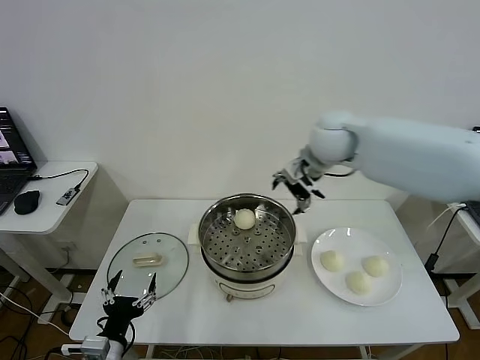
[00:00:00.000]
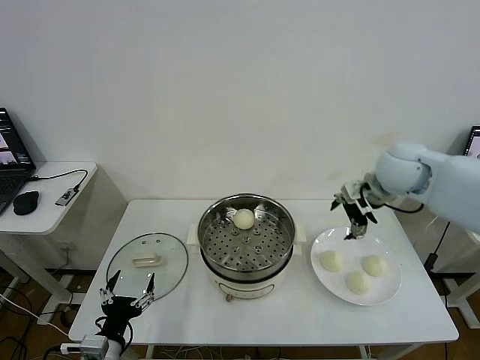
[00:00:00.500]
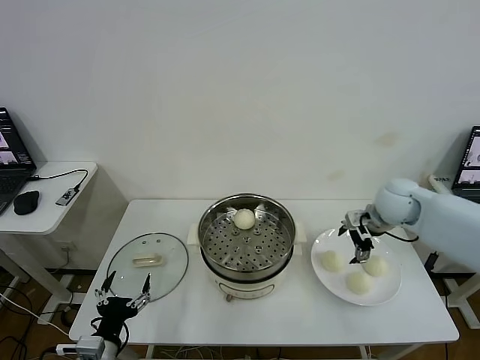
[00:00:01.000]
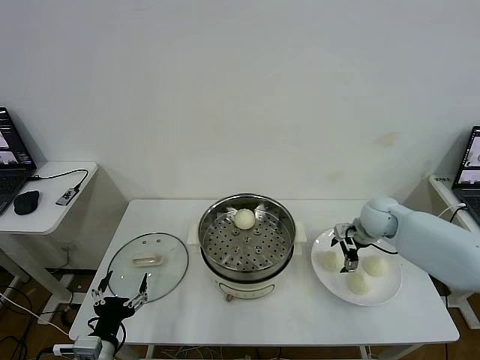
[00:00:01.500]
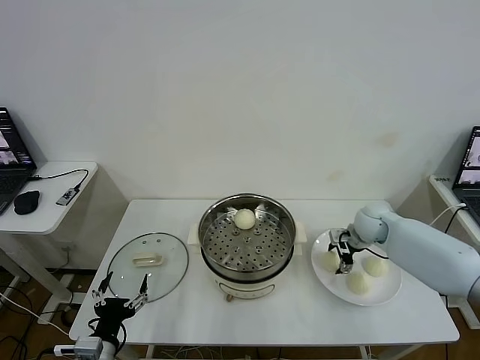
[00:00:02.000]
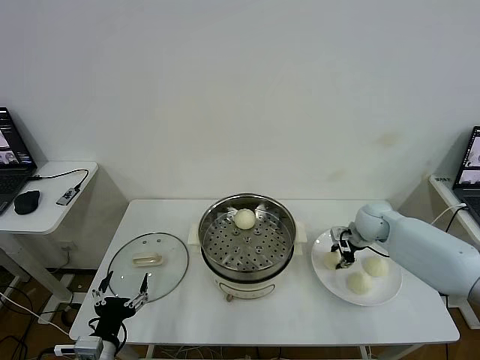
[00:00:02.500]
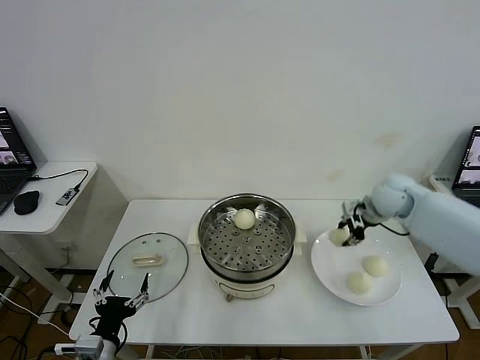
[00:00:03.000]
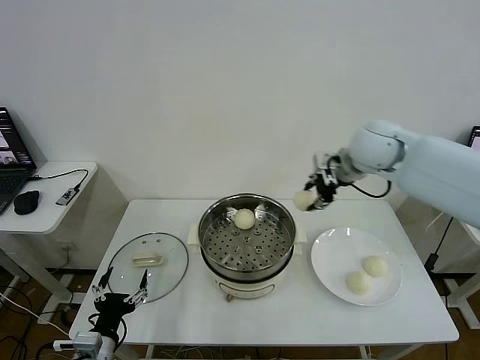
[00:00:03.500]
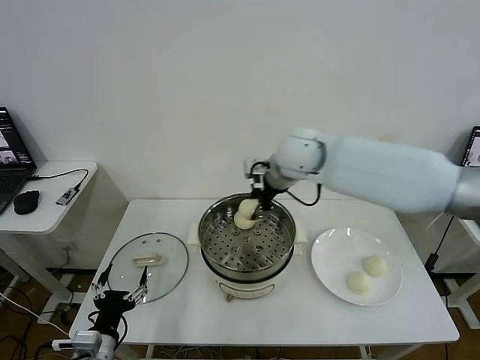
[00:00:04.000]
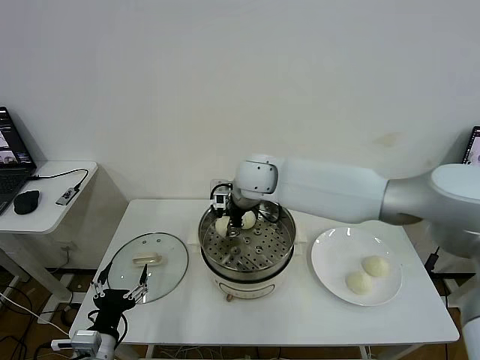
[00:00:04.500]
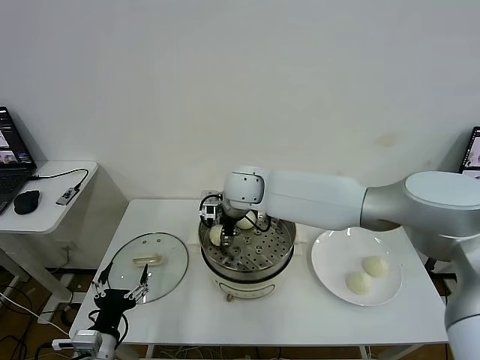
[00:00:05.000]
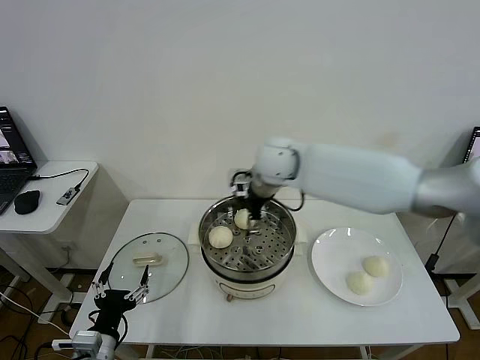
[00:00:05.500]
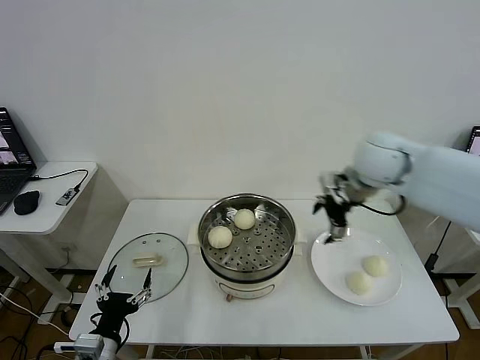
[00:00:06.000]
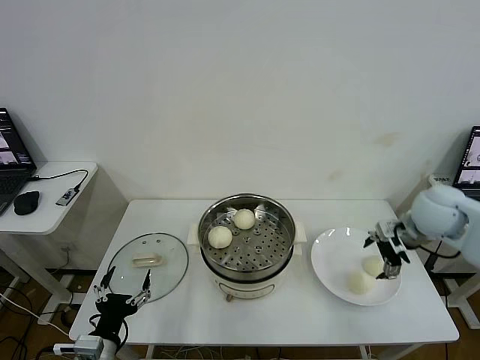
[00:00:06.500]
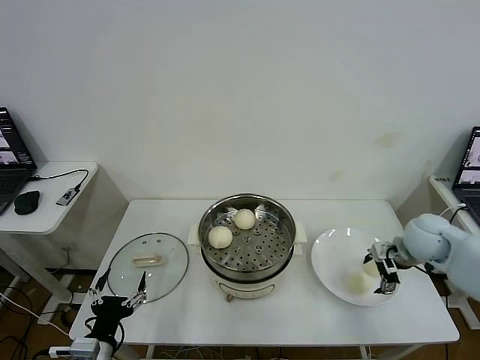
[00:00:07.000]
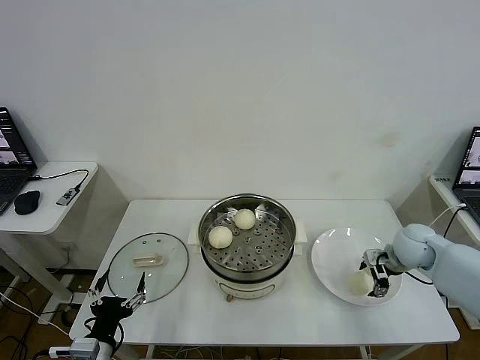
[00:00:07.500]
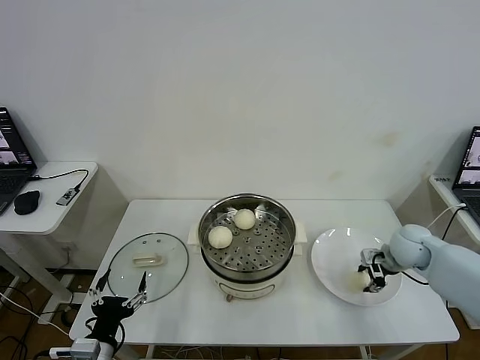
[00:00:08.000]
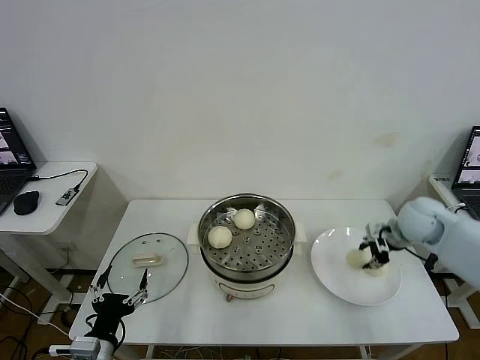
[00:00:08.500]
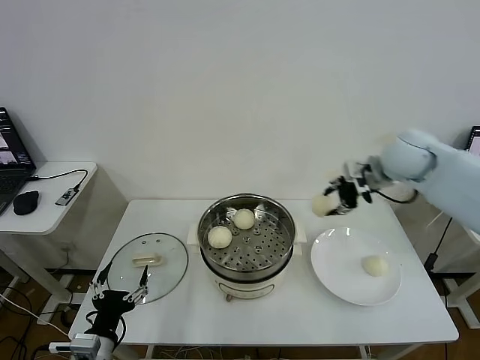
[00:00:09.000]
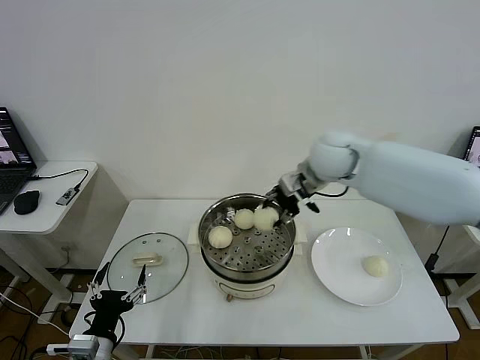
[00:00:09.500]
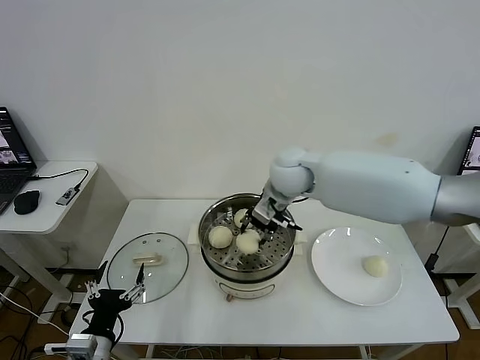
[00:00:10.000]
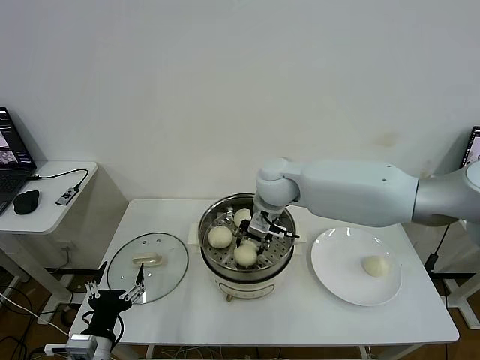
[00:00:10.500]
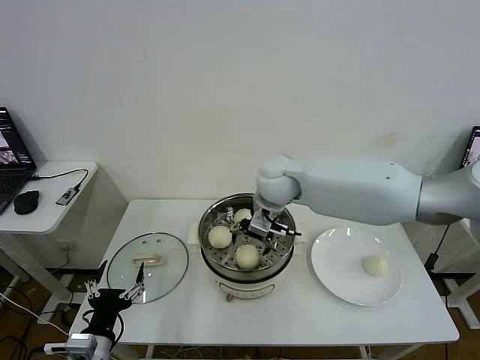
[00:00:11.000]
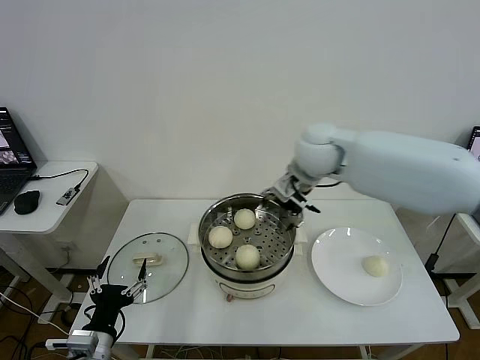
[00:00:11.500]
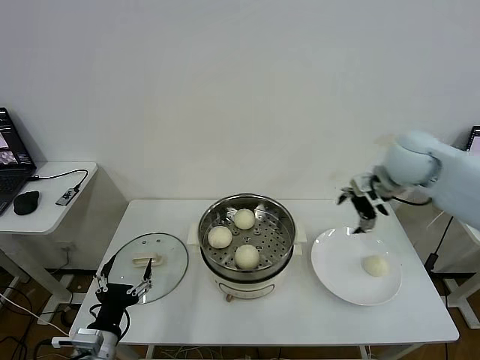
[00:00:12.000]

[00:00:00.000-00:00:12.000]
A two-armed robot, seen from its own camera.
Task of the whole recording: take steamed baozi put them in steamer then cover it.
Step, 00:00:00.000 to 00:00:02.000: Grasp the baozi in the plate with right gripper.
Step, 00:00:02.500 to 00:00:05.000: Place the baozi on the steamer with right gripper.
Step, 00:00:05.500 to 00:00:08.000: Grasp the baozi in the plate with right gripper.
Step, 00:00:08.500 to 00:00:11.000: Place the baozi on the steamer with right gripper.
00:00:00.000 to 00:00:02.000: The right gripper is displaced downward and to the right by approximately 25 cm, and closes its fingers.
00:00:02.000 to 00:00:04.000: The right gripper goes some 30 cm to the left and upward, and closes up.
00:00:04.000 to 00:00:06.000: The right gripper travels to the right by approximately 20 cm, and opens up.
00:00:06.000 to 00:00:08.000: The right gripper goes approximately 25 cm downward and to the right, and closes up.
00:00:08.000 to 00:00:10.000: The right gripper shifts about 35 cm to the left and upward.
00:00:10.000 to 00:00:12.000: The right gripper goes some 25 cm to the right, and opens up.

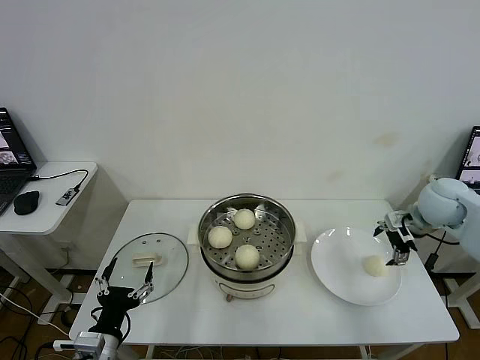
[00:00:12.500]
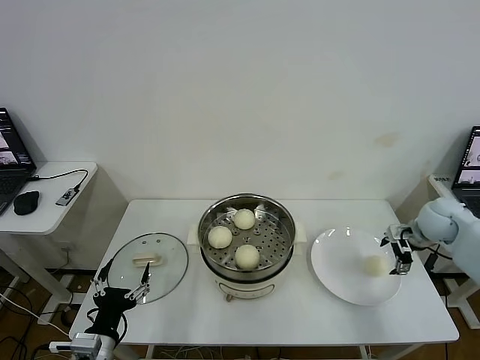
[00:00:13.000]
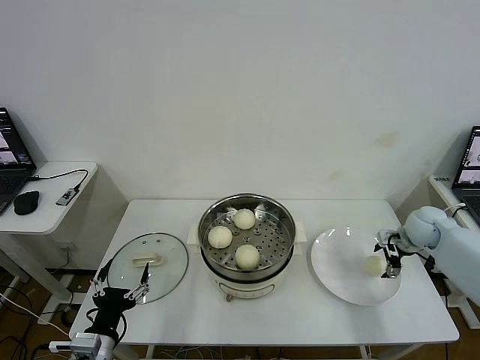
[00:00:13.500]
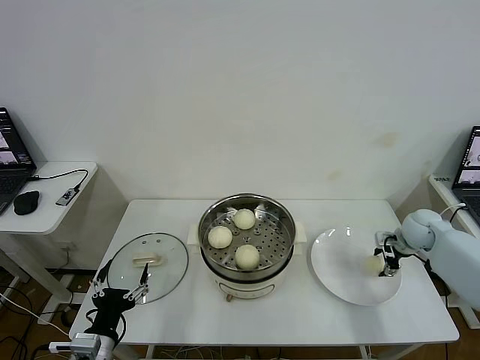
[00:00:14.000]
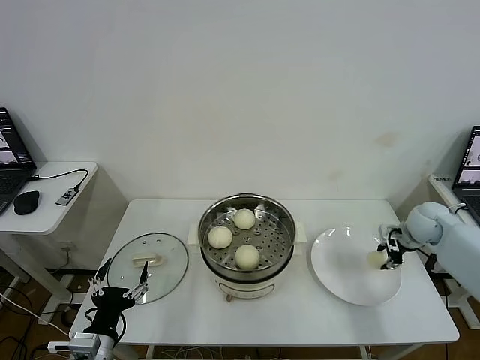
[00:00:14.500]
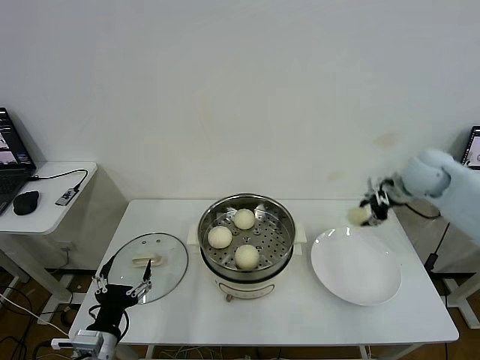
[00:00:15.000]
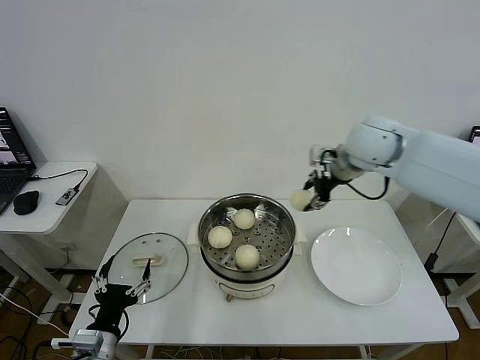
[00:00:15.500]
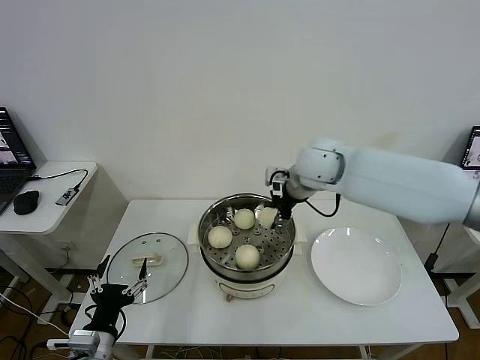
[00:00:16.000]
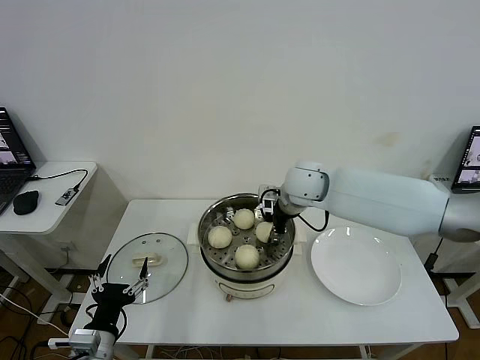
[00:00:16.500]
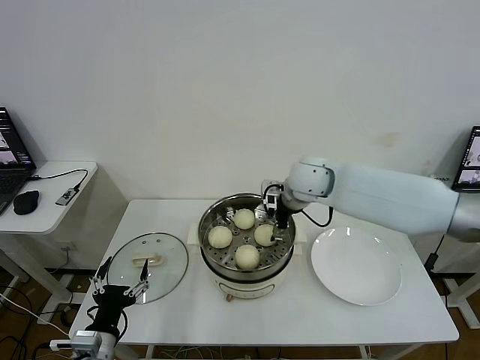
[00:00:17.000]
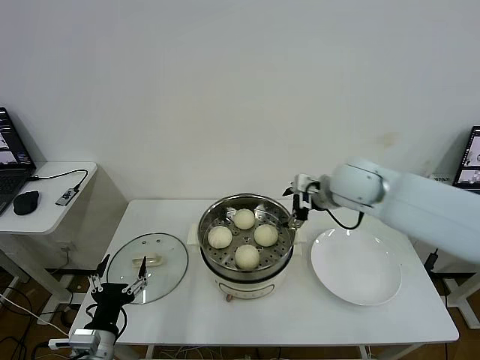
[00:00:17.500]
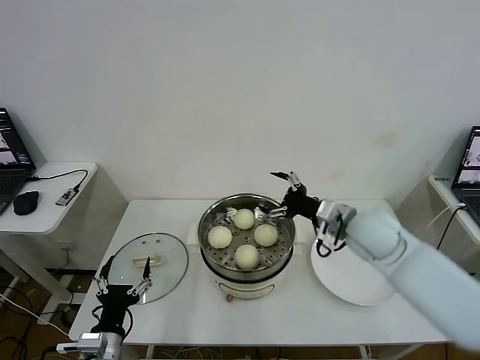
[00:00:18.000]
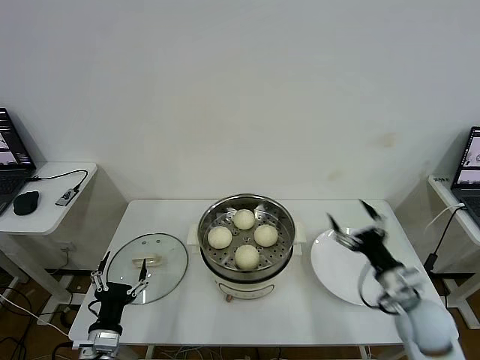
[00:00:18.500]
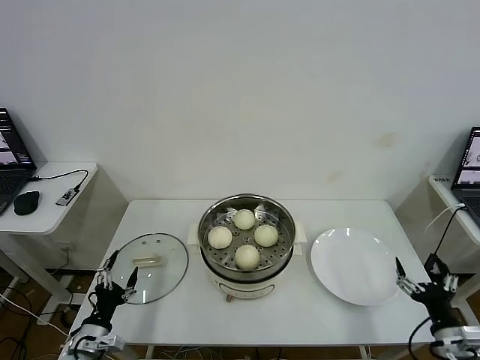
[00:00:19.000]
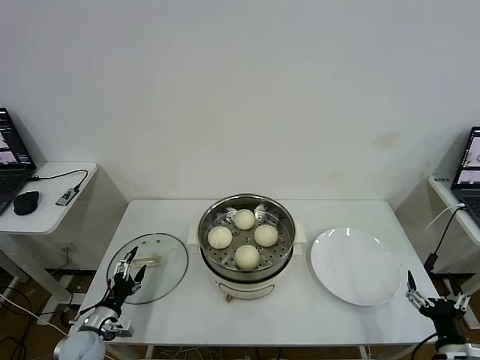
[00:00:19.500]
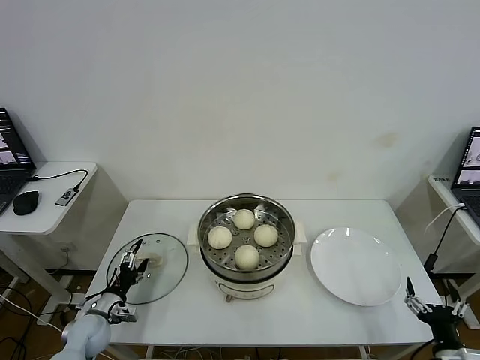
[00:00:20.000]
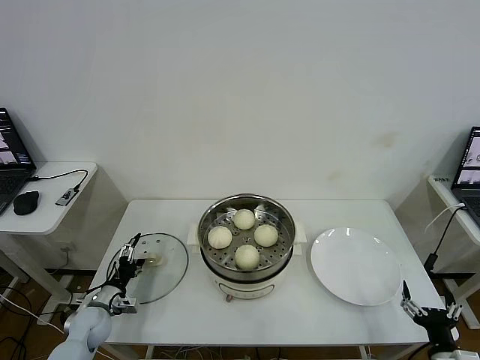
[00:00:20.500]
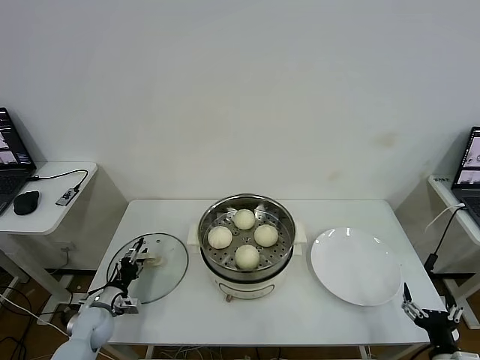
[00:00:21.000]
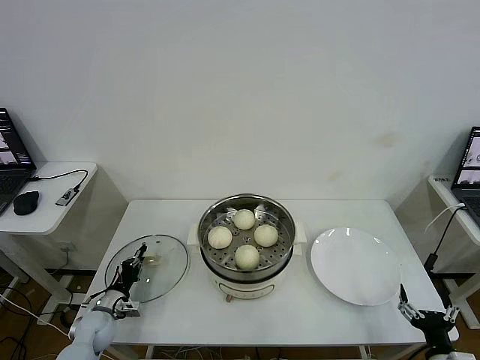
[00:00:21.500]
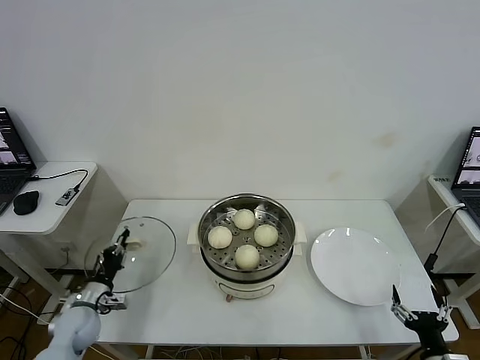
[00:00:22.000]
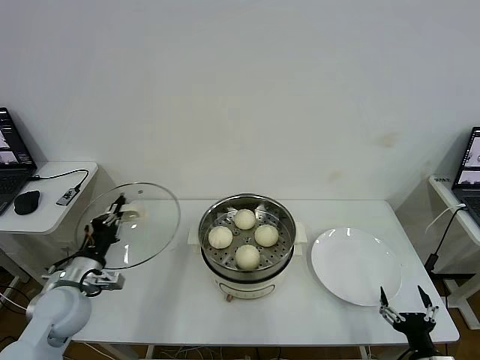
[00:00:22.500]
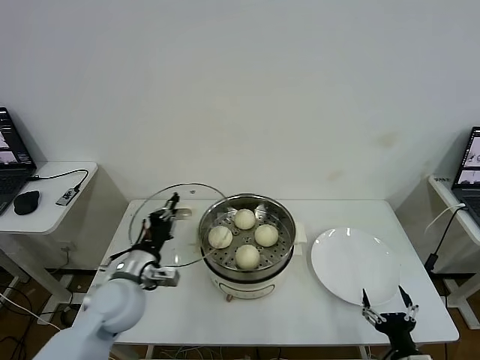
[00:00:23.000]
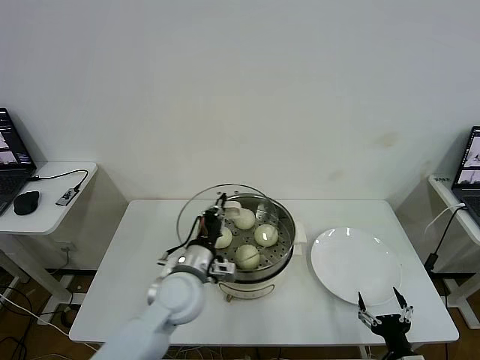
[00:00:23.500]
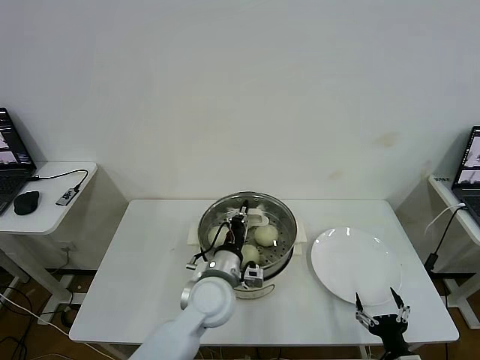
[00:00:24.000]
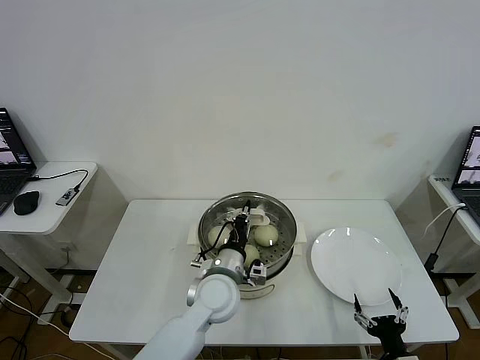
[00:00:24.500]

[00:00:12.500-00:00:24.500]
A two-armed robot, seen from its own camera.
Task of the whole recording: take steamed baozi put them in steamer then cover it.
Step, 00:00:12.500 to 00:00:14.000: Grasp the baozi in the plate with right gripper.
Step, 00:00:14.500 to 00:00:17.000: Place the baozi on the steamer with right gripper.
Step, 00:00:17.500 to 00:00:21.500: Grasp the pot lid with left gripper.
00:00:12.500 to 00:00:14.500: The right gripper goes approximately 10 cm downward, and closes up.
00:00:14.500 to 00:00:16.500: The right gripper goes about 30 cm to the left.
00:00:16.500 to 00:00:18.500: The right gripper is displaced backward, to the right and downward by roughly 35 cm, and opens.
00:00:18.500 to 00:00:20.500: The right gripper heads backward, downward and to the right, covering about 20 cm, while the left gripper heads forward, to the left and downward, covering approximately 20 cm.
00:00:20.500 to 00:00:22.500: The left gripper travels upward by about 15 cm, and closes.
00:00:22.500 to 00:00:24.500: The left gripper goes roughly 30 cm to the right.

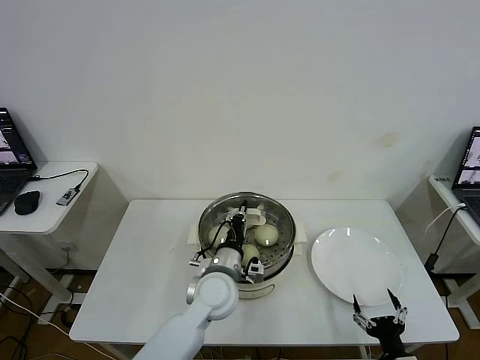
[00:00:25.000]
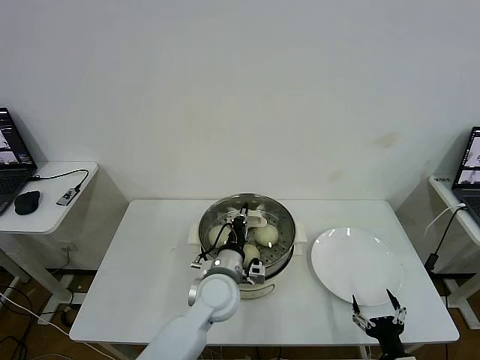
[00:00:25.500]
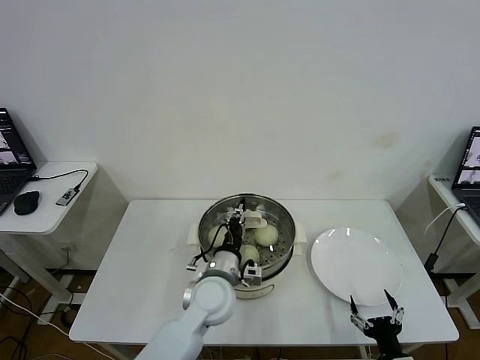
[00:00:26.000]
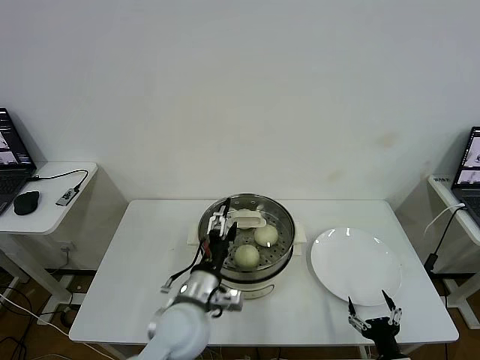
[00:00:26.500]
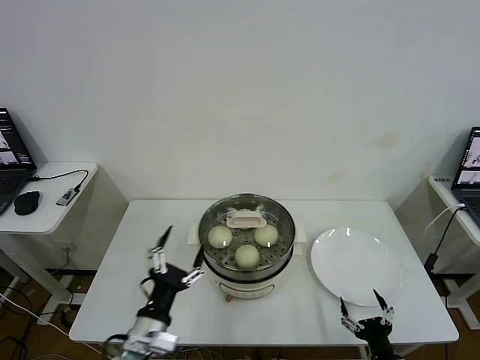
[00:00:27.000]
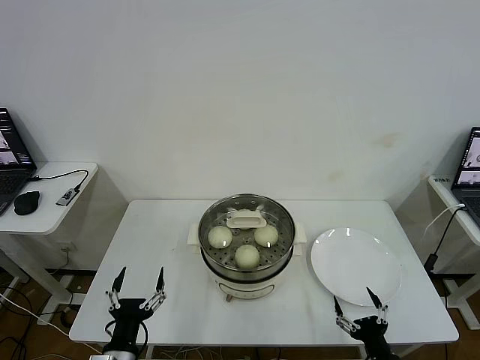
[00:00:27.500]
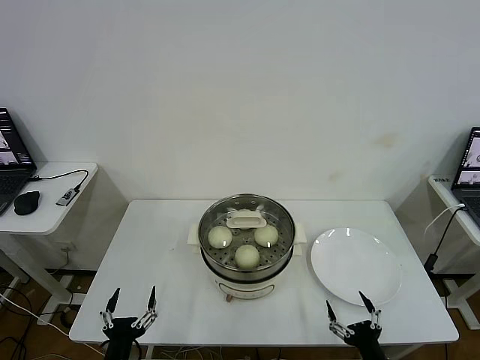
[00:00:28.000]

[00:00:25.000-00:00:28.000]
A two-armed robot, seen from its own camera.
Task of the whole recording: take steamed baozi put them in steamer then cover it.
00:00:25.000 to 00:00:26.500: The left gripper shifts roughly 5 cm backward, and opens up.
00:00:26.500 to 00:00:28.000: The left gripper shifts some 25 cm to the left, backward and downward.
